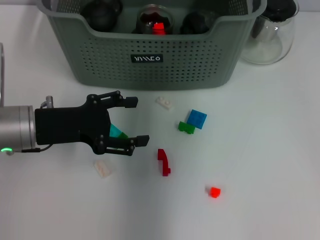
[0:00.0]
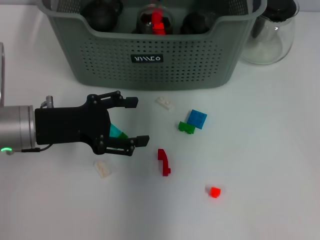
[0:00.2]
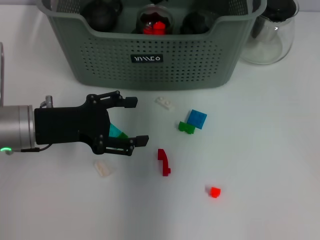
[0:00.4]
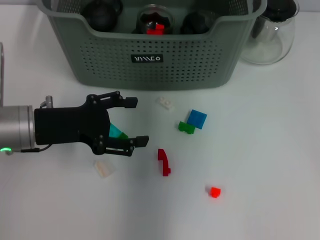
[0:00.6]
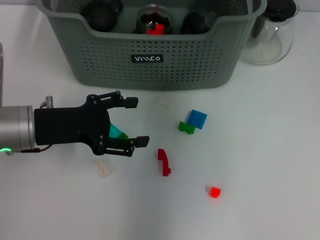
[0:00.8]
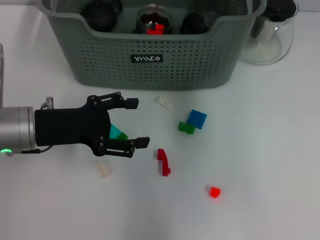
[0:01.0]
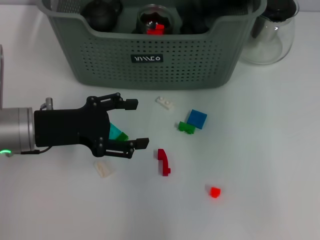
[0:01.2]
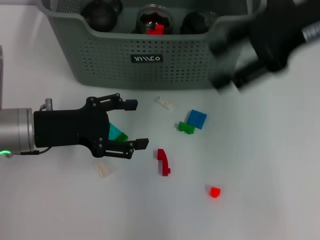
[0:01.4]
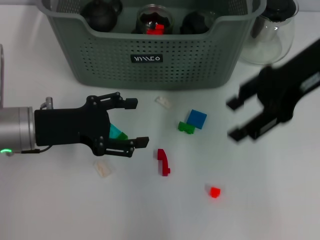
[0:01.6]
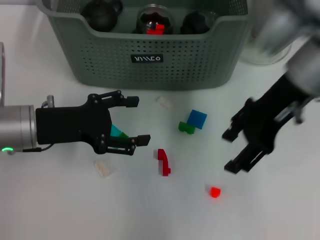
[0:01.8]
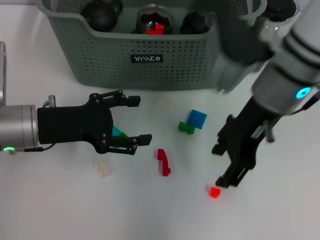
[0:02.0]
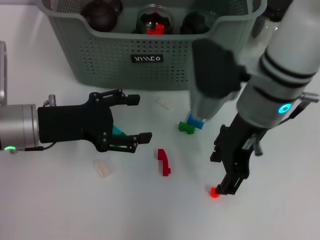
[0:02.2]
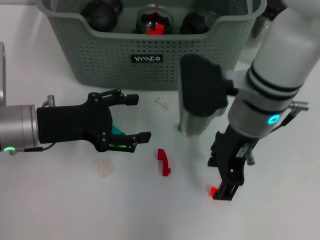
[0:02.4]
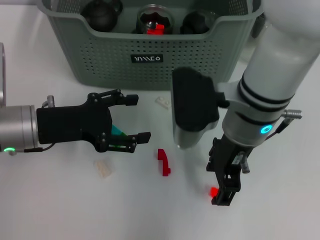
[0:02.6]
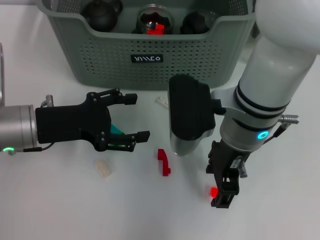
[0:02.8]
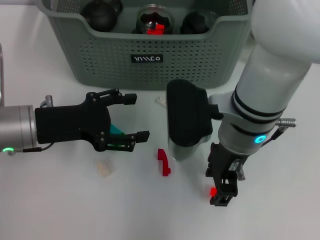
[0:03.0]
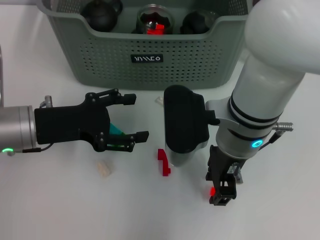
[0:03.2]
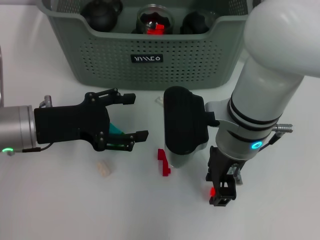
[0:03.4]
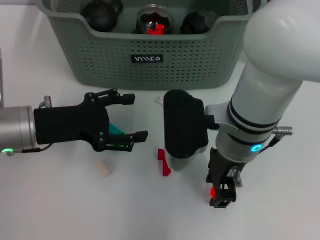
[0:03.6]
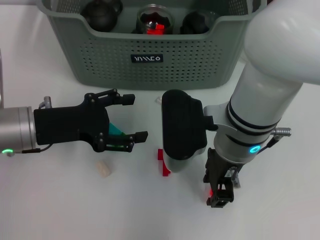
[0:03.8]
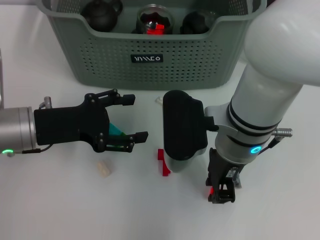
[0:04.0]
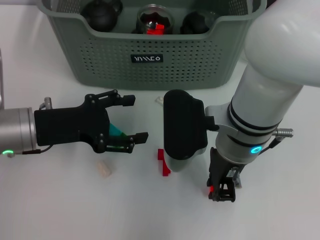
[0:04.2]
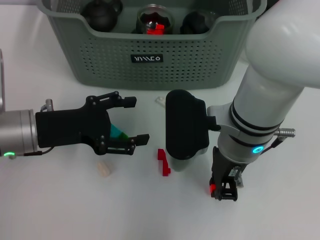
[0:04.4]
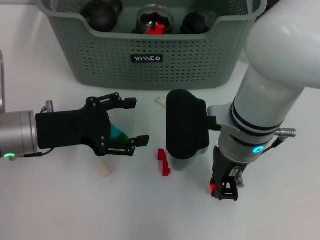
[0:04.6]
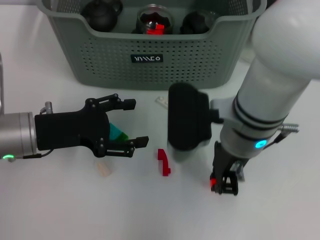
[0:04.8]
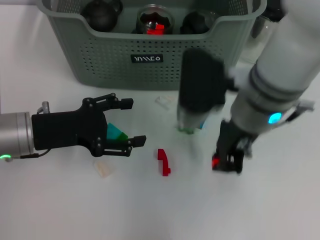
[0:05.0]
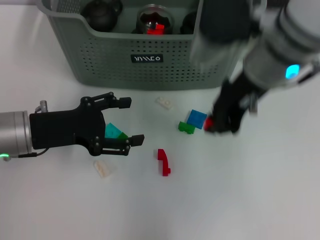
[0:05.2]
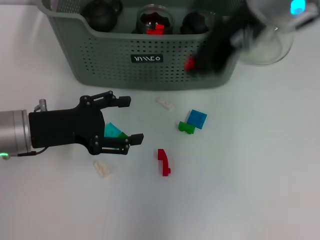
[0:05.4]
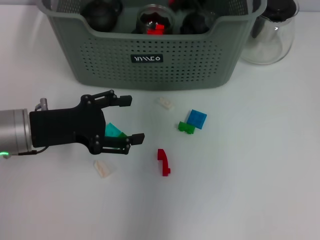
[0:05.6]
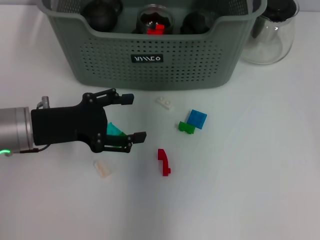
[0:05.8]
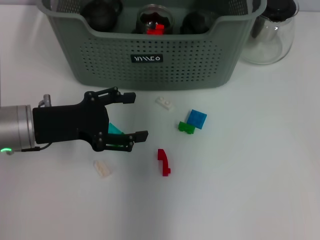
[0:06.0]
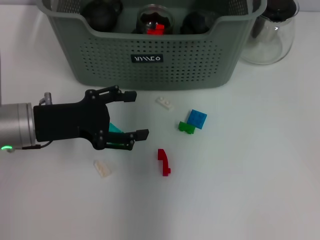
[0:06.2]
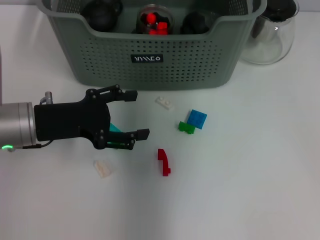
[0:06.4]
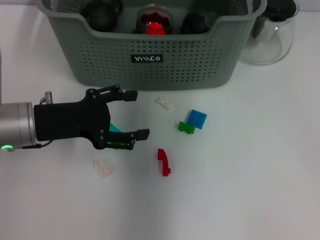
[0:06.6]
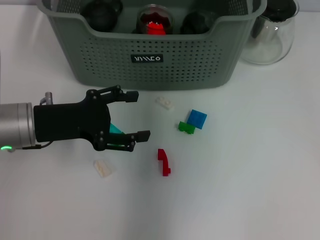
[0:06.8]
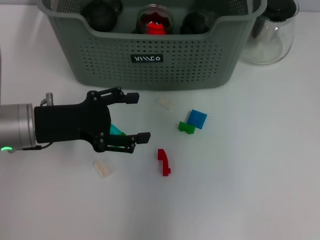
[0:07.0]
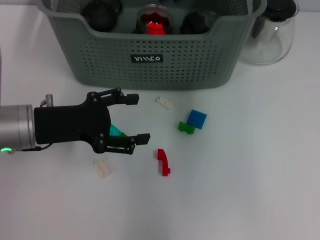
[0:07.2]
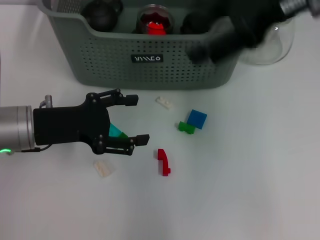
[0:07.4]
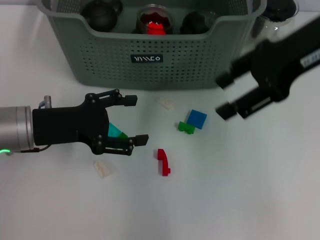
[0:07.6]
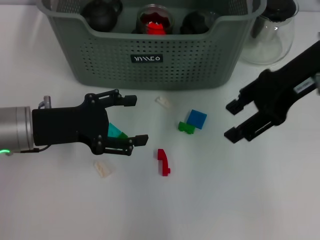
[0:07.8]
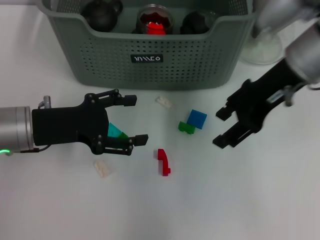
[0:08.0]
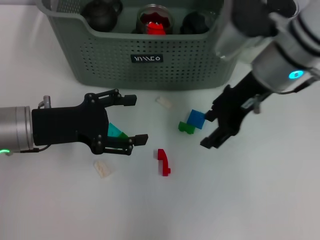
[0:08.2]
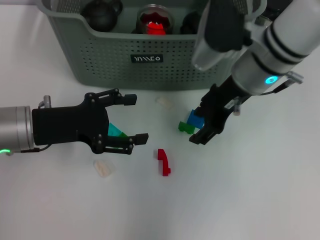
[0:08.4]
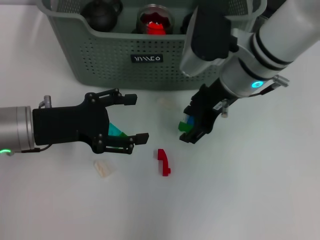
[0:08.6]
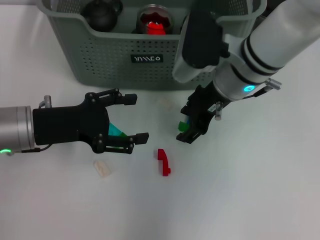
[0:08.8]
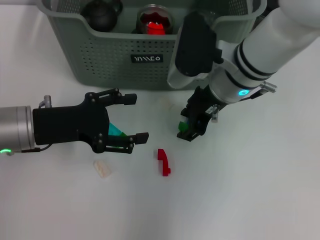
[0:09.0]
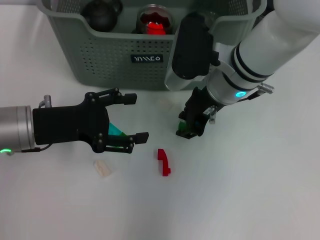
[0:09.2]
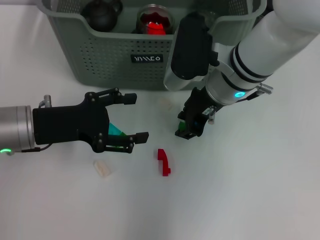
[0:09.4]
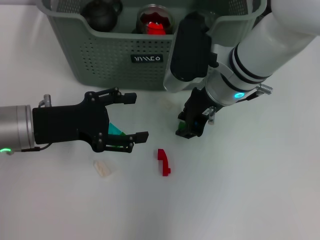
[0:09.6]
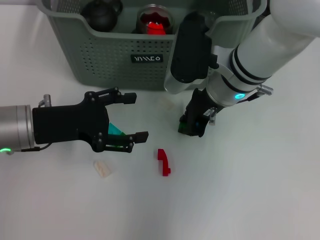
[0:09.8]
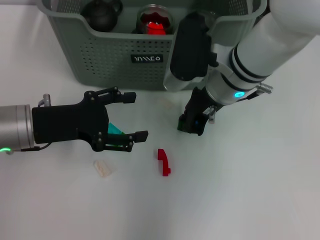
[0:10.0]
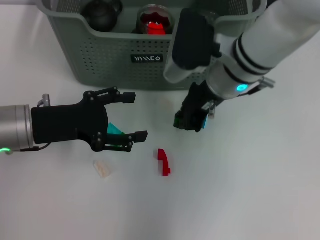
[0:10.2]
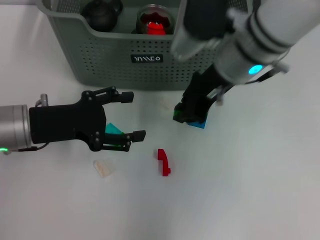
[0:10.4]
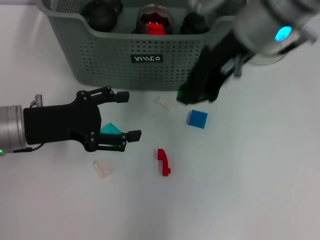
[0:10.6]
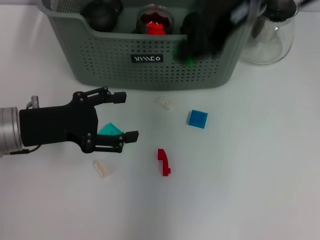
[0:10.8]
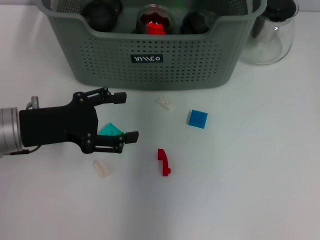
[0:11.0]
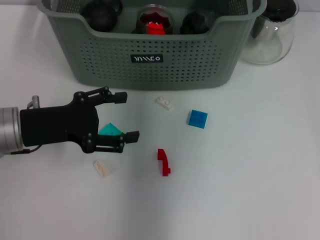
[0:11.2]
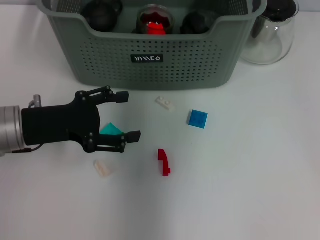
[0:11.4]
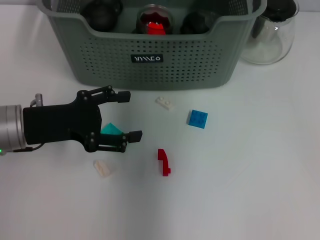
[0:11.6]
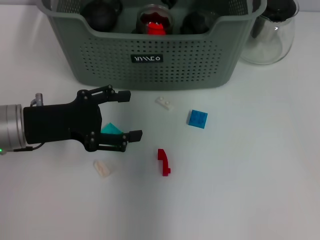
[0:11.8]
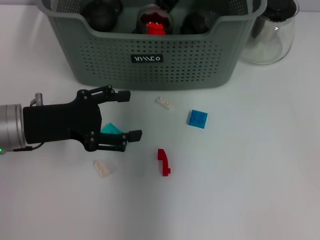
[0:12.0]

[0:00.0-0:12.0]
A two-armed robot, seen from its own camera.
Task of the whole recording: pick up the teacup on the table and place it into the storage bin, pick up the block on the table and place it into the storage bin.
Step, 0:00.6 to 0:04.4: Grasp the orange block with right gripper.
Step, 0:04.6 to 0:06.4: Place the orange block in the storage box with right gripper.
Step, 0:06.6 to 0:09.8: Grasp the green block with right gripper.
Step, 0:10.2 to 0:12.0: Place the green block in the storage box with right gripper.
0:00.0 to 0:01.6: The right gripper heads to the right and backward, covering about 15 cm, and opens up.
0:01.6 to 0:03.0: The right gripper travels to the left and downward by approximately 15 cm.
0:03.0 to 0:04.4: The right gripper closes its fingers.
0:04.4 to 0:06.0: The right gripper is displaced forward and upward by roughly 20 cm.
0:06.0 to 0:07.6: The right gripper is displaced to the right and backward by roughly 15 cm, and opens up.
0:07.6 to 0:09.0: The right gripper heads downward and to the left, covering roughly 15 cm.
0:09.0 to 0:10.4: The right gripper heads upward, covering about 5 cm, and closes.
0:10.4 to 0:12.0: The right gripper shifts roughly 10 cm forward, and reaches about 15 cm upward, then returns.

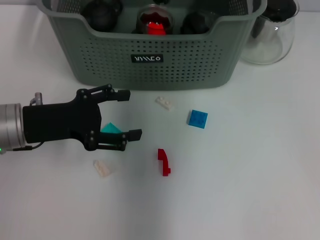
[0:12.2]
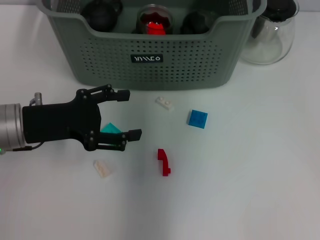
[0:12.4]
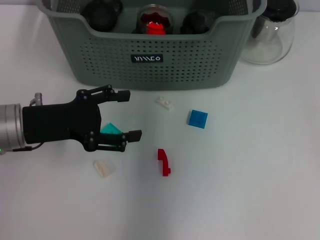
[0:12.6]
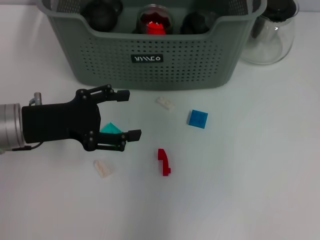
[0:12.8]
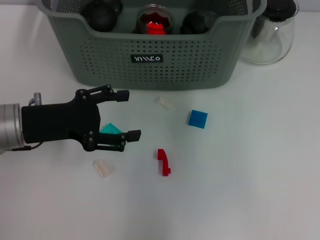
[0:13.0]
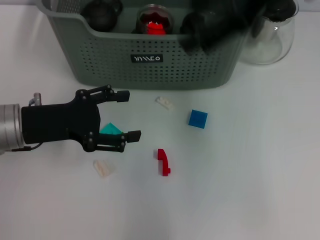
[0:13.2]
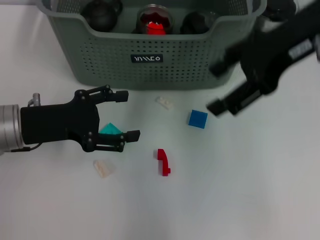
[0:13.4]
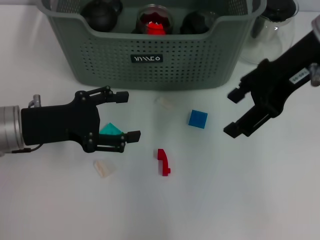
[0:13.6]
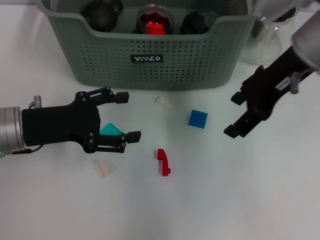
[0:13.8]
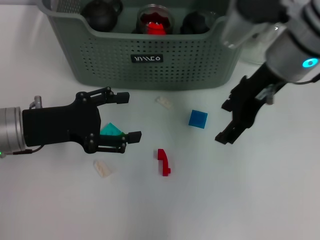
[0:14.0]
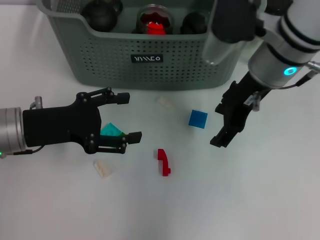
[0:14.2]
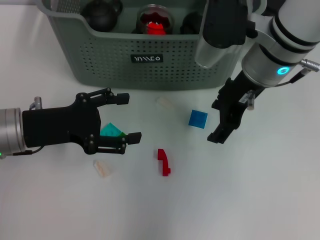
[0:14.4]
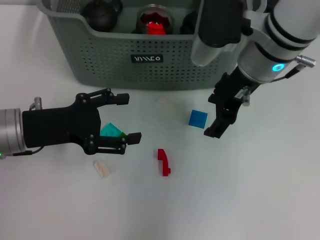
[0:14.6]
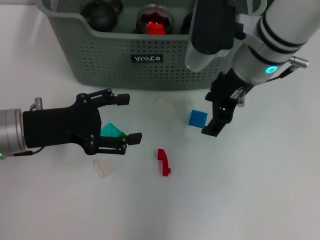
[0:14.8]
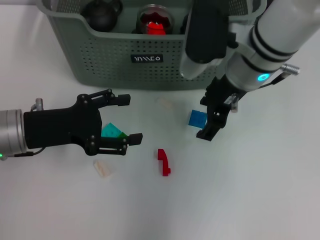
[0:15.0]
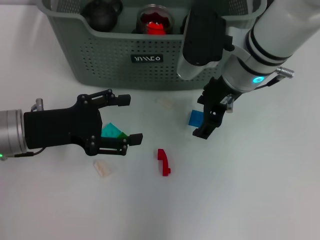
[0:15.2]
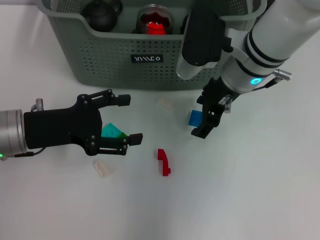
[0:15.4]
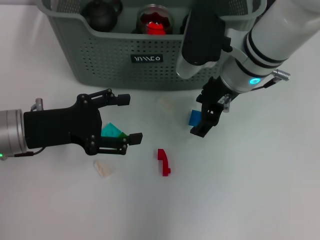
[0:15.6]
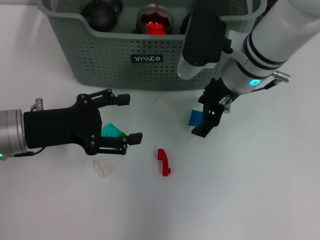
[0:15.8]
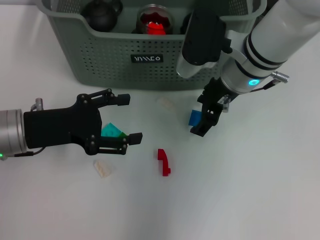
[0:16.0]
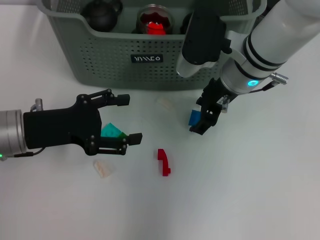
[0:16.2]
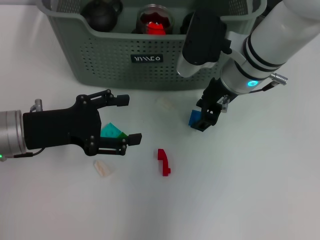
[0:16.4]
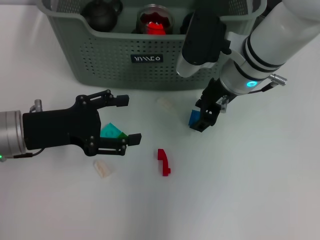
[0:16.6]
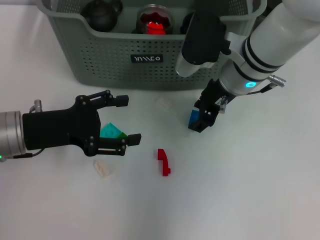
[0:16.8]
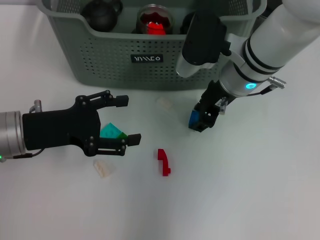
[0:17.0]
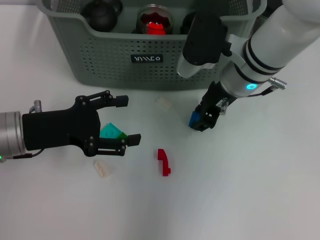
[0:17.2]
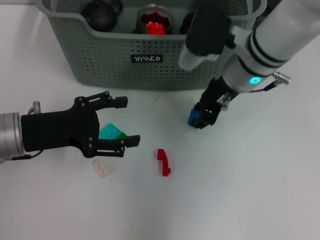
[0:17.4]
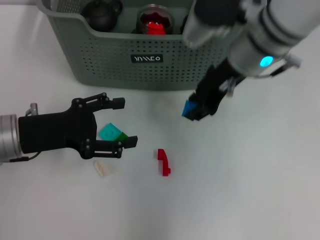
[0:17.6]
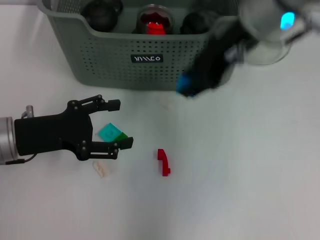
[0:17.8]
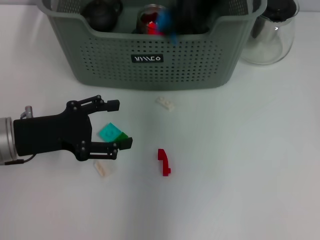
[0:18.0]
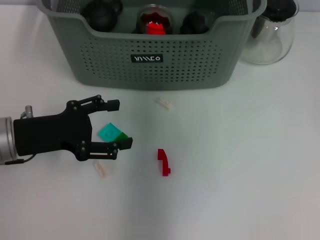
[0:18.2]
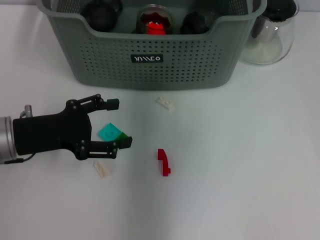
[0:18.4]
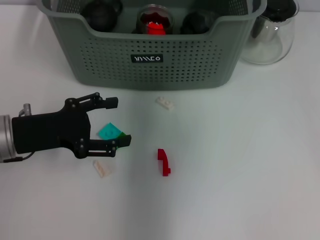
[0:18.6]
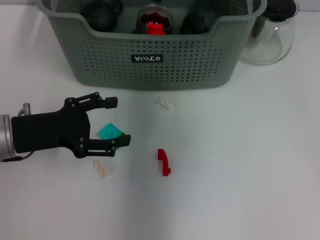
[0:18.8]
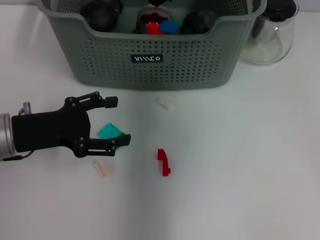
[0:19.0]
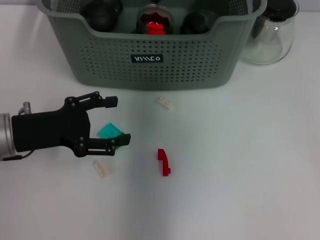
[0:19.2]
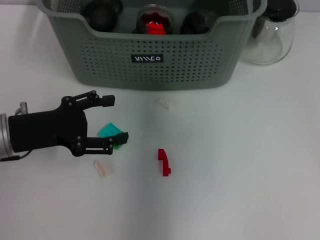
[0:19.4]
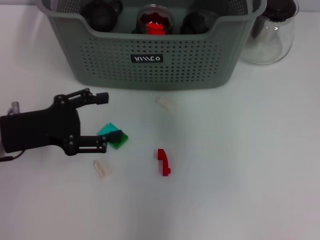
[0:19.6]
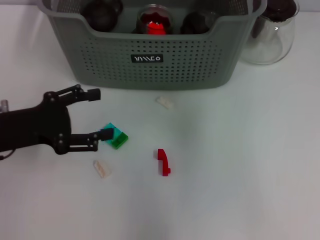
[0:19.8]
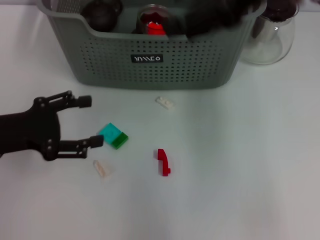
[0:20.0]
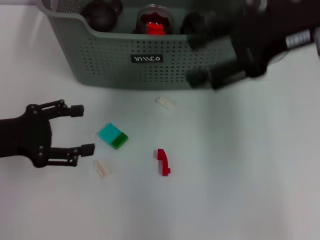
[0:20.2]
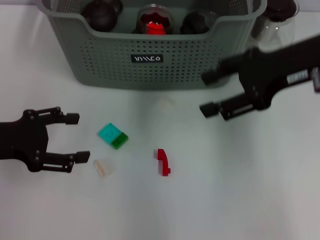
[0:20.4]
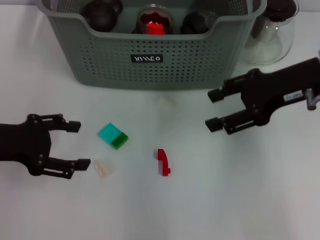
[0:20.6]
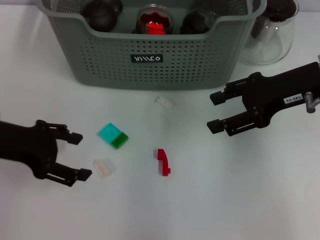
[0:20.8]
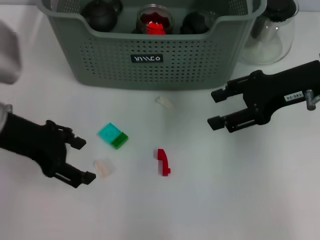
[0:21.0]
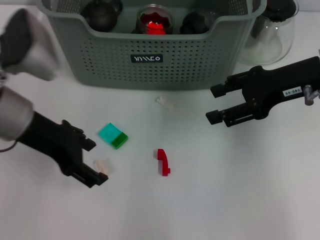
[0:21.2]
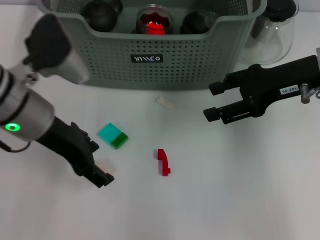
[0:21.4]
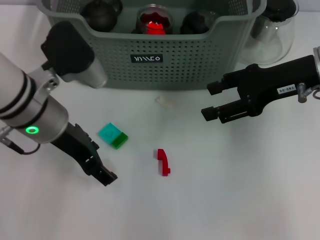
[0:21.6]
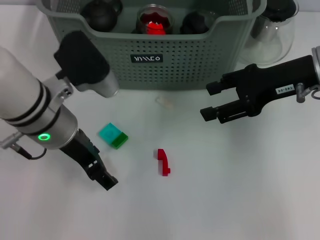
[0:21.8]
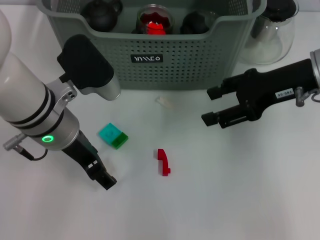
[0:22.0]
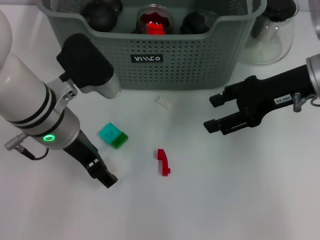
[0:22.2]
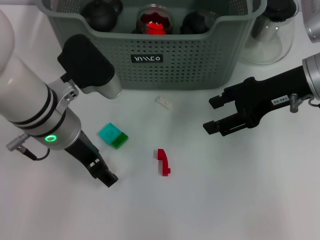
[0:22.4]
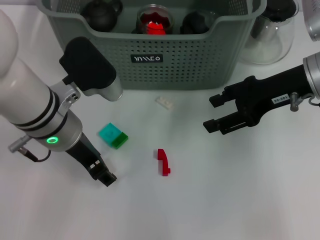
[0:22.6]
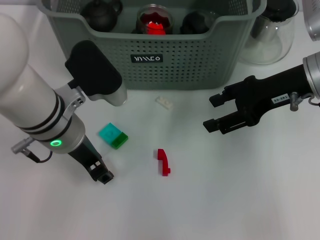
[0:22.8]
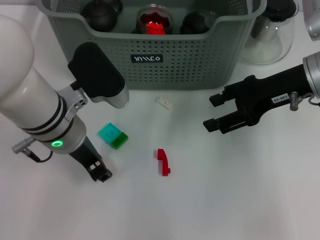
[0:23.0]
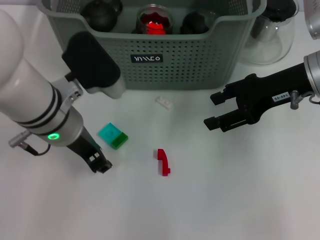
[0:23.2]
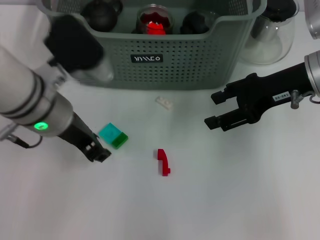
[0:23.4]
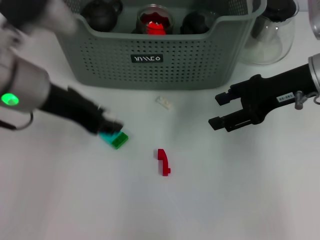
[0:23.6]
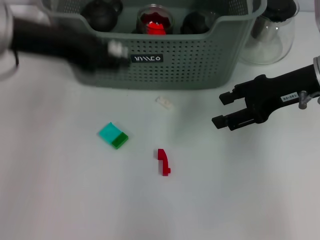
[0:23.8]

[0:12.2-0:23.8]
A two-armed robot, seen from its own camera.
Task of the whole recording: pick up the teacup on the table and place it into the storage bin, pick up the block on the table and place it into the storage bin.
Step, 0:12.2 to 0:17.0: Grasp the dark blue block with right gripper.
Step, 0:17.4 to 0:19.0: Place the dark blue block in the storage box with right gripper.
Step, 0:19.2 to 0:22.8: Grasp the white block with right gripper.
0:12.2 to 0:13.6: The right gripper heads to the right and backward, covering some 15 cm, and opens up.
0:13.6 to 0:15.0: The right gripper moves downward and to the left, some 10 cm.
0:15.0 to 0:16.6: The grippers move only a little.
0:16.6 to 0:18.0: The right gripper heads upward, covering roughly 20 cm.
0:18.0 to 0:19.4: The right gripper goes approximately 5 cm forward, and opens.
0:19.4 to 0:21.0: The left gripper travels upward by approximately 5 cm, while the right gripper moves to the right, downward and backward, roughly 20 cm.
0:21.0 to 0:22.4: The left gripper travels to the right by approximately 10 cm.
0:22.4 to 0:23.8: The left gripper is displaced upward and to the left by roughly 15 cm, and closes its fingers.
